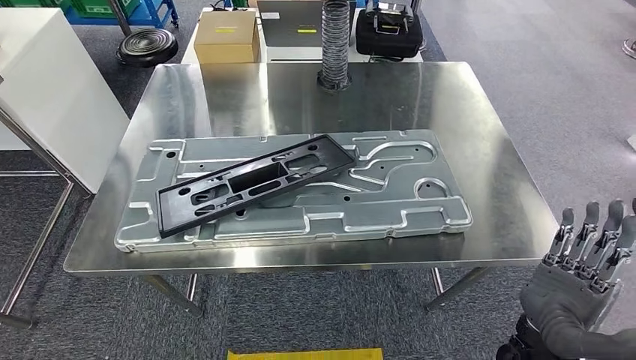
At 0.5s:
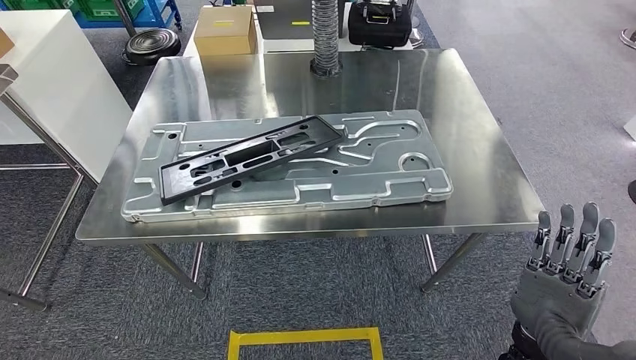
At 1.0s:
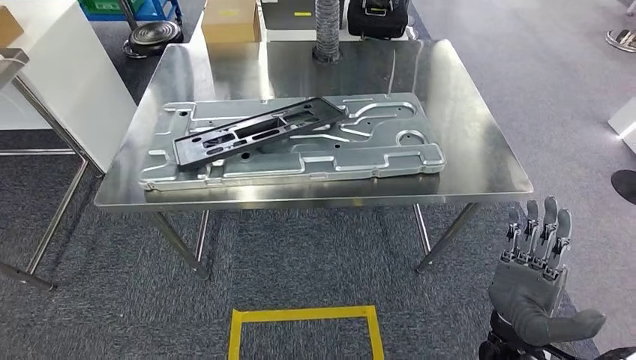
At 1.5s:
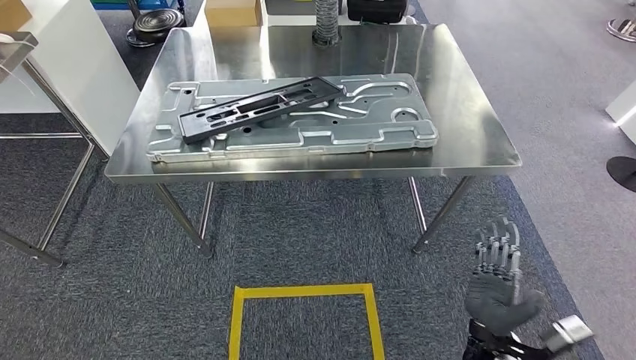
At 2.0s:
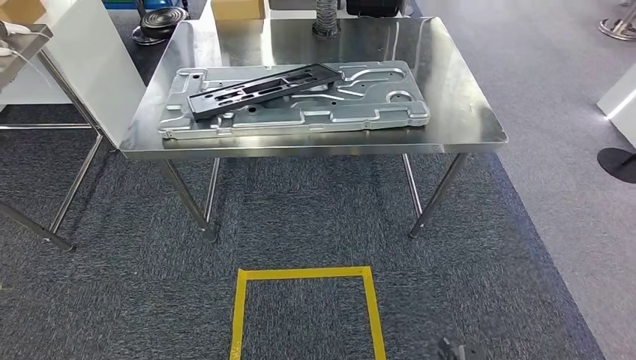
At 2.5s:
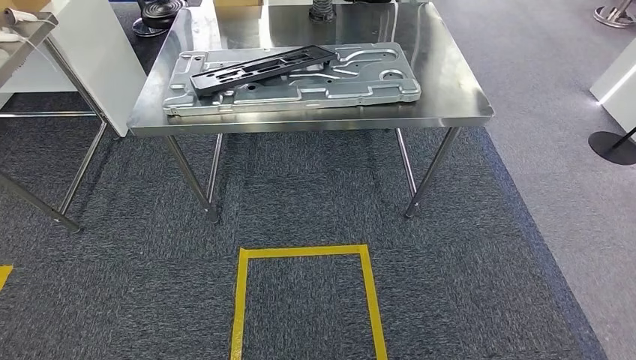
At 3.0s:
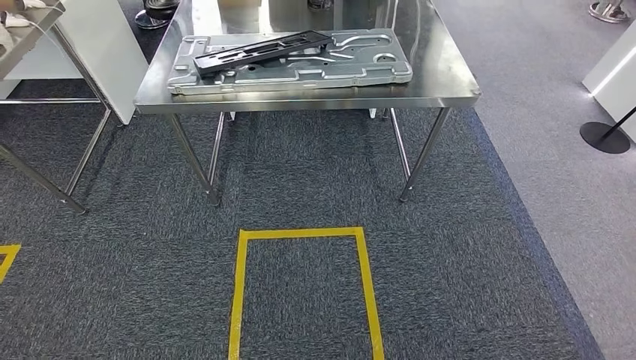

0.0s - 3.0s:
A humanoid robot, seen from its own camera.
Step, 0.0s - 3.0s: Return to the initial position at the workbench.
